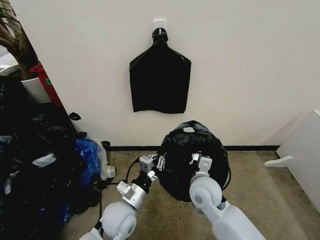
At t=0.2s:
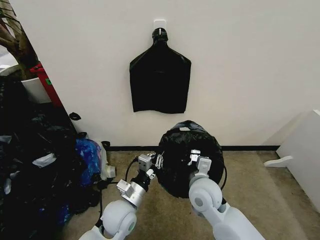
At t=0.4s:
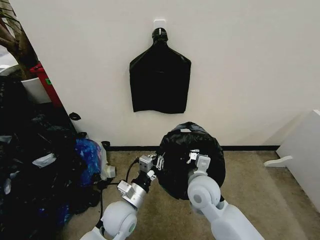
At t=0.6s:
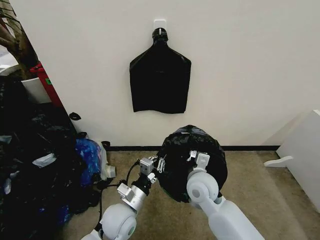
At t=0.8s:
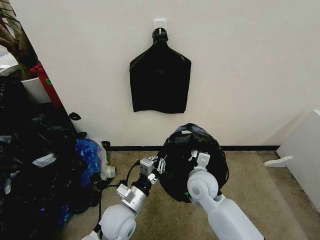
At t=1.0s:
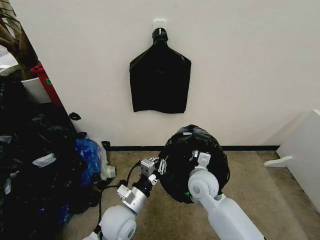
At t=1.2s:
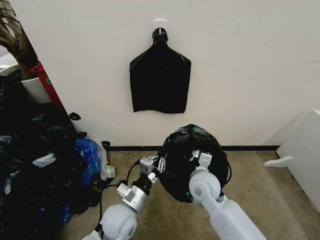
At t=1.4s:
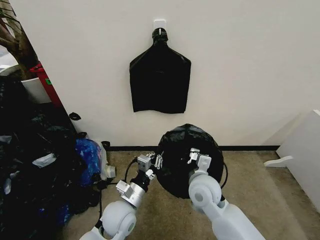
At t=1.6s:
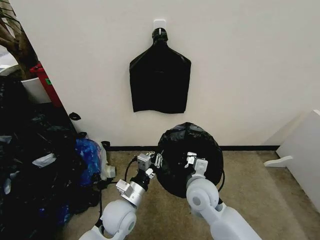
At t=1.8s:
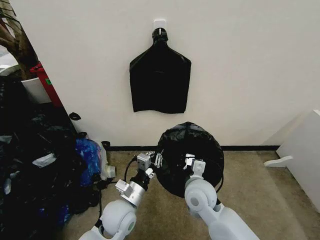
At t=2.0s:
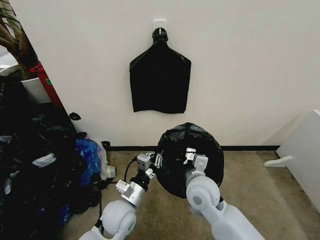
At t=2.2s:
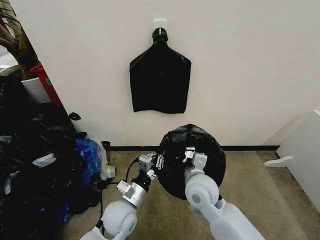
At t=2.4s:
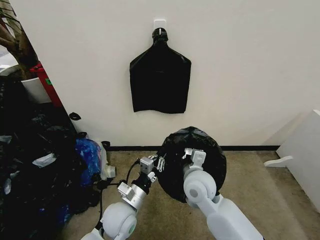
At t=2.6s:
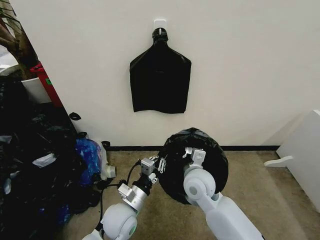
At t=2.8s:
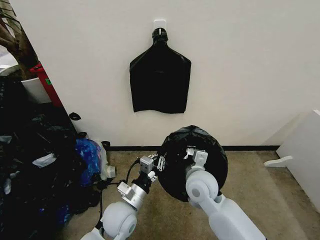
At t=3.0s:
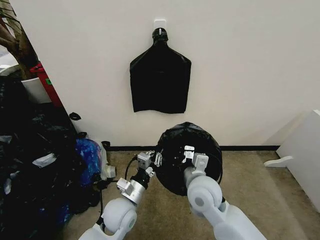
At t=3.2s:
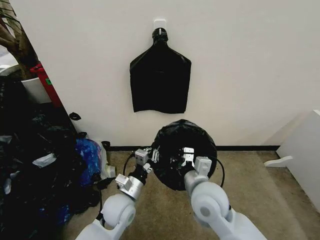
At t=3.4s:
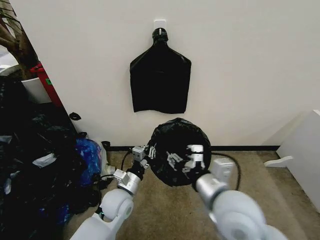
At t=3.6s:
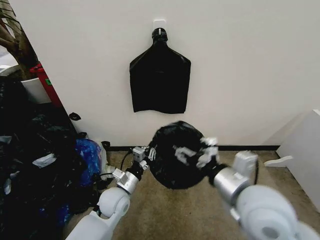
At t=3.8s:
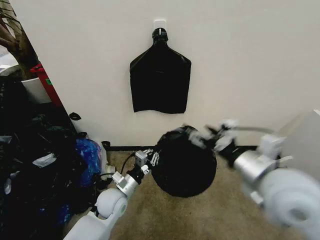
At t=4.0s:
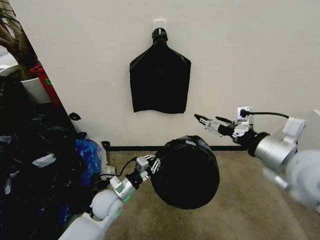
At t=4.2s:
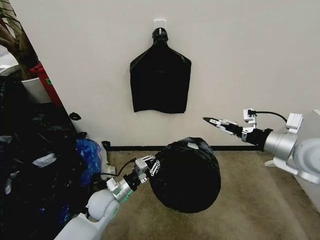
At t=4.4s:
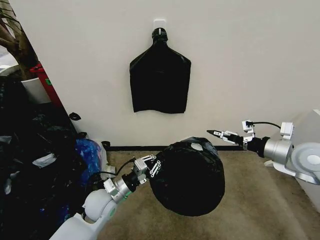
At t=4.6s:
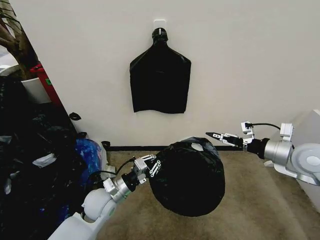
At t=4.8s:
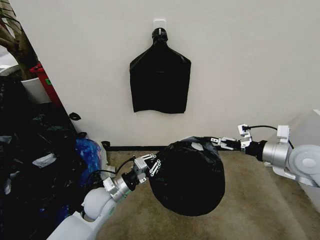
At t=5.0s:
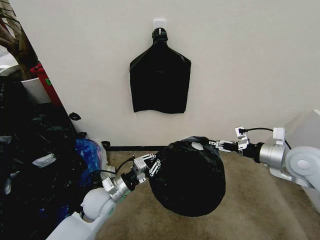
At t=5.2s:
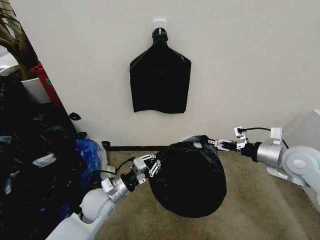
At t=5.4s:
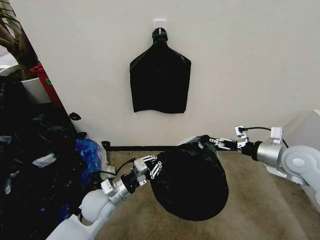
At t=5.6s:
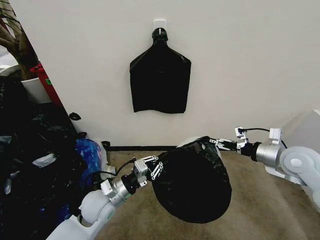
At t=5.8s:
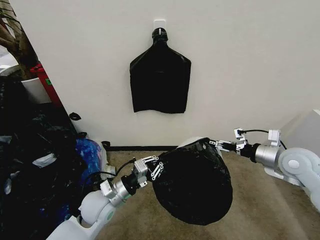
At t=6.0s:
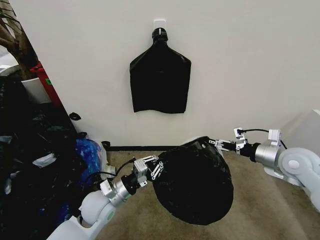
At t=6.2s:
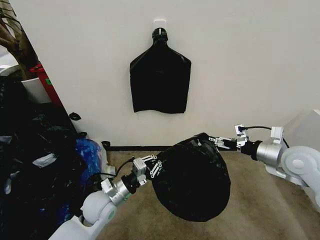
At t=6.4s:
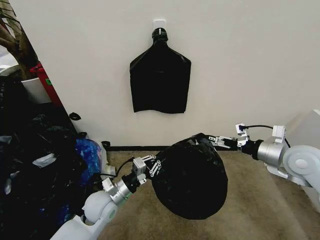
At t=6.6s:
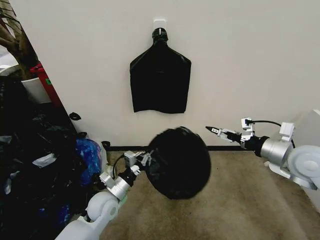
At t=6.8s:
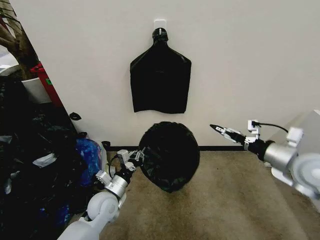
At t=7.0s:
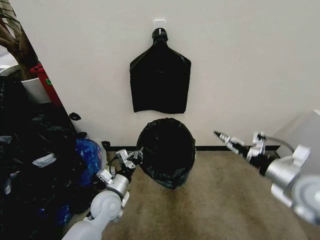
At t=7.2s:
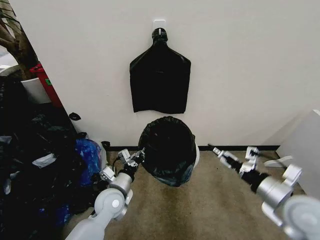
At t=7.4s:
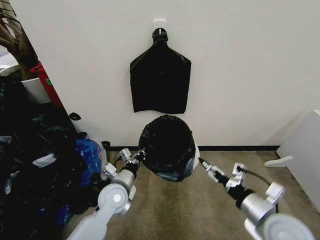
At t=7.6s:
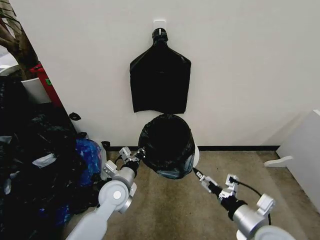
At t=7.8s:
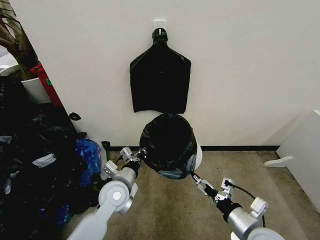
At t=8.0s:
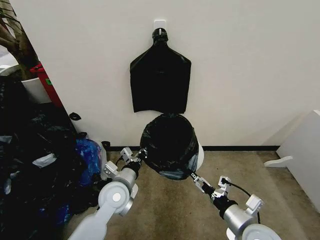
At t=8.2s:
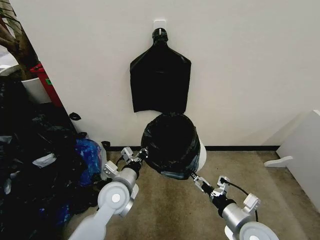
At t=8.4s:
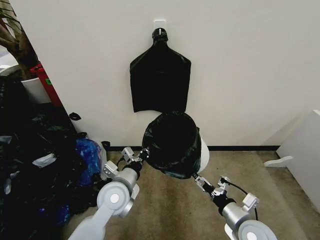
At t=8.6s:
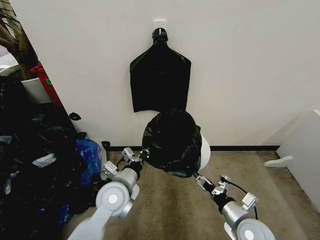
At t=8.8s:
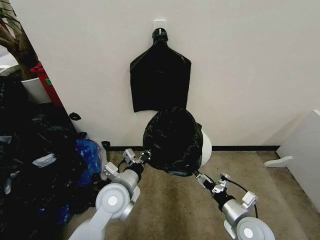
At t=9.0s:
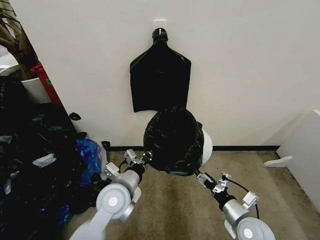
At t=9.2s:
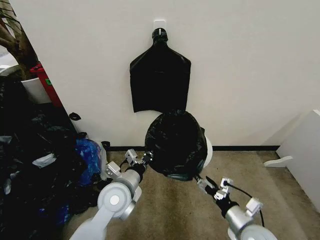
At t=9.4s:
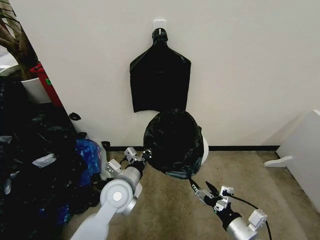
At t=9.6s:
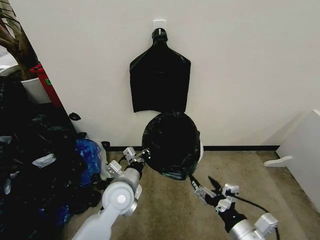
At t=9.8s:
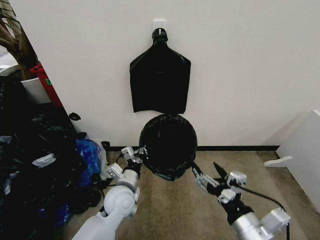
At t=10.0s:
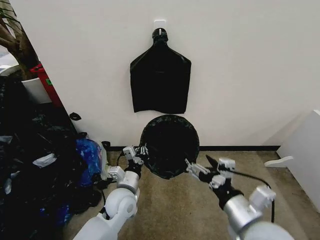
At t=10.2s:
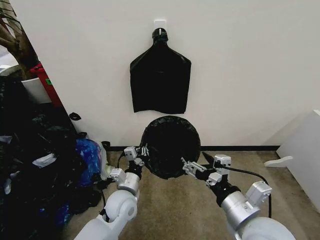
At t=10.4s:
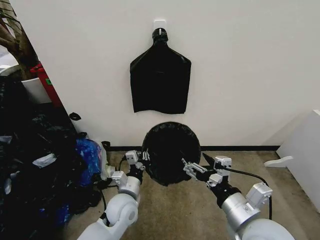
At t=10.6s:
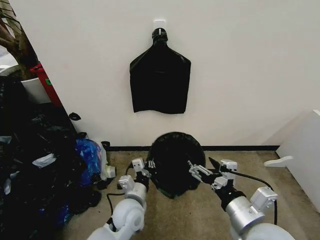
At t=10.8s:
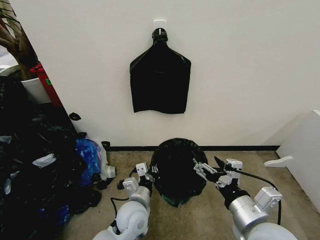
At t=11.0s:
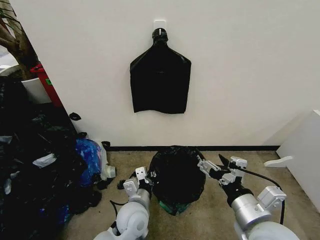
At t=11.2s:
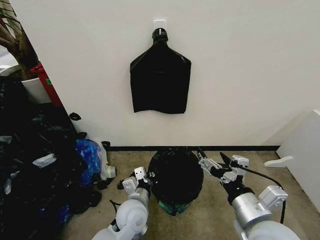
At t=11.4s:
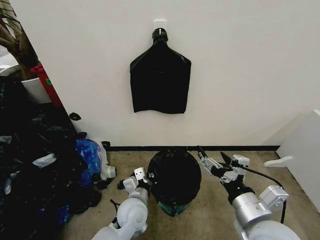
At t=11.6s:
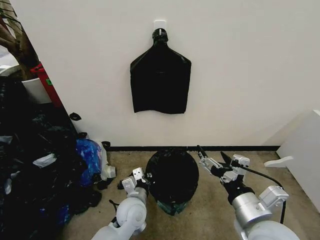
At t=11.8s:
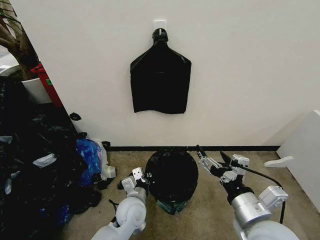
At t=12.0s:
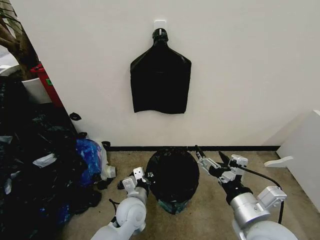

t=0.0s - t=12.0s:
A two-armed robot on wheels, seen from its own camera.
Task of the whole recording: Place the garbage bag over the trash bin.
t=0.0s - t=3.0s: The grippers make only small movements.
t=3.0s - t=4.4s: The left gripper moves to the left, roughly 5 cm; the right gripper goes roughly 30 cm to the right, and opens up.
t=4.4s - t=6.0s: The grippers make only small movements.
t=6.0s - t=7.6s: The right gripper goes about 20 cm backward, to the left and downward.
t=7.6s - t=9.0s: The right gripper is displaced downward by about 10 cm. Meanwhile the left gripper goes roughly 5 cm upward.
t=9.0s - t=10.4s: The right gripper heads upward and to the left, covering roughly 15 cm, while the left gripper shifts approximately 10 cm downward.

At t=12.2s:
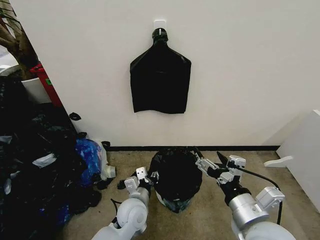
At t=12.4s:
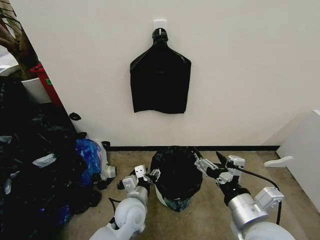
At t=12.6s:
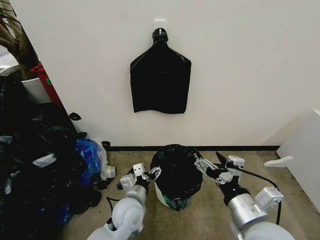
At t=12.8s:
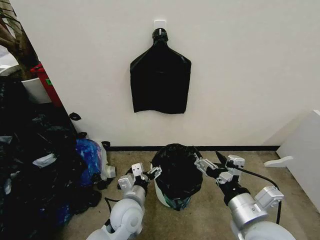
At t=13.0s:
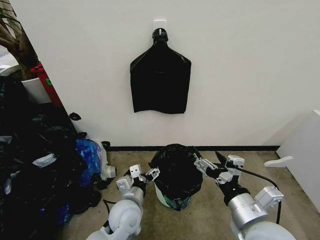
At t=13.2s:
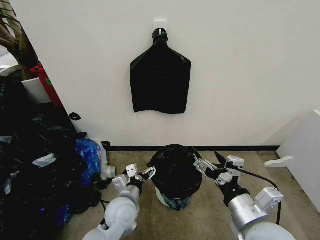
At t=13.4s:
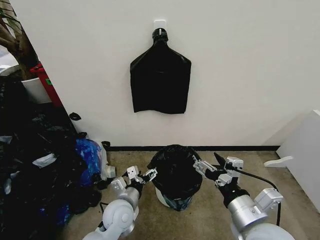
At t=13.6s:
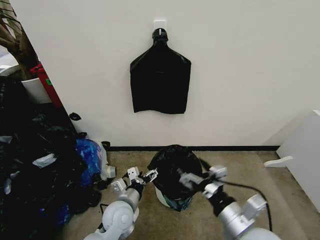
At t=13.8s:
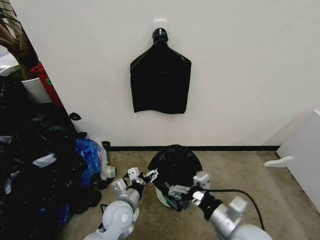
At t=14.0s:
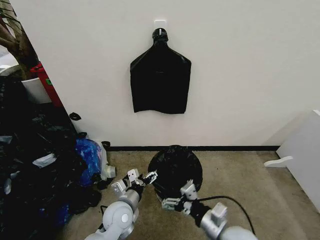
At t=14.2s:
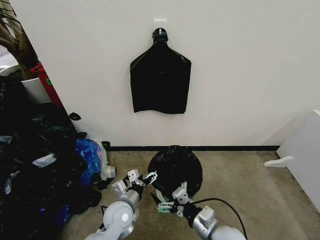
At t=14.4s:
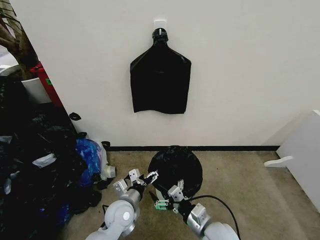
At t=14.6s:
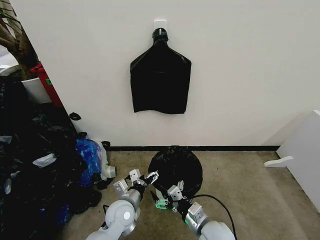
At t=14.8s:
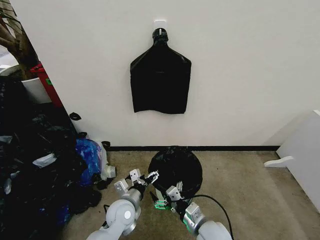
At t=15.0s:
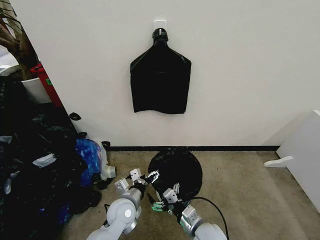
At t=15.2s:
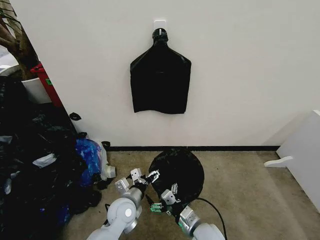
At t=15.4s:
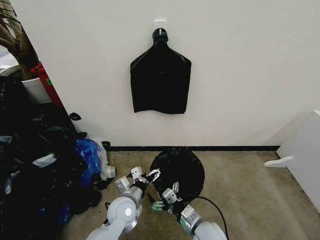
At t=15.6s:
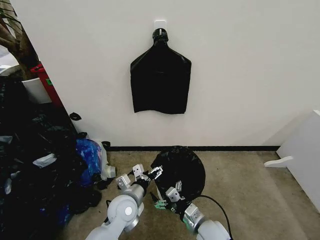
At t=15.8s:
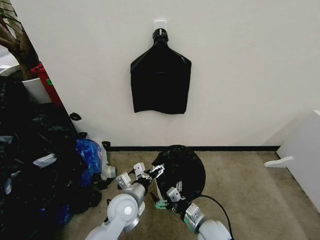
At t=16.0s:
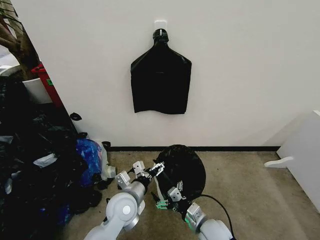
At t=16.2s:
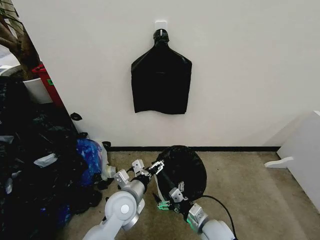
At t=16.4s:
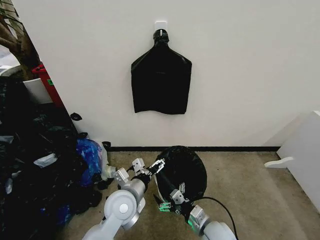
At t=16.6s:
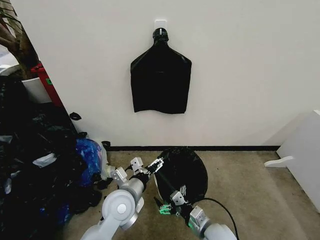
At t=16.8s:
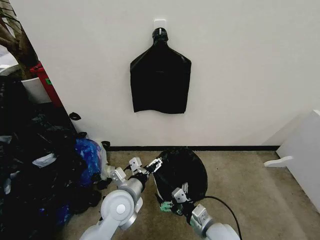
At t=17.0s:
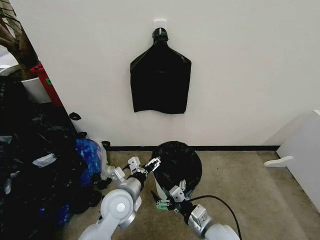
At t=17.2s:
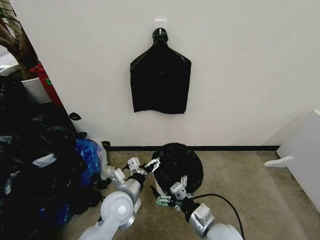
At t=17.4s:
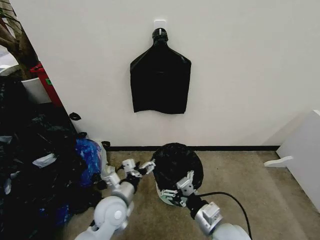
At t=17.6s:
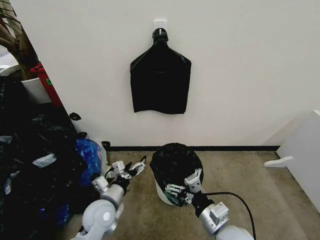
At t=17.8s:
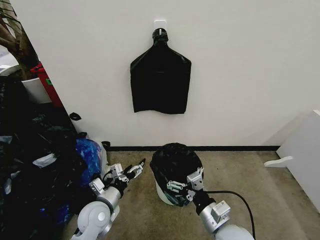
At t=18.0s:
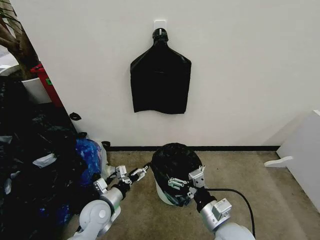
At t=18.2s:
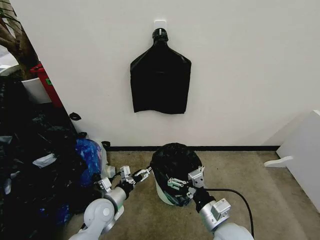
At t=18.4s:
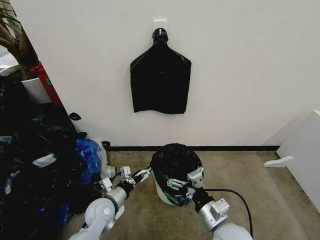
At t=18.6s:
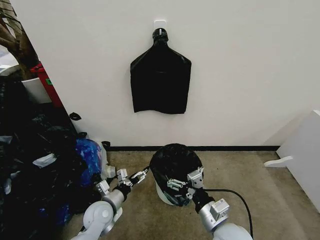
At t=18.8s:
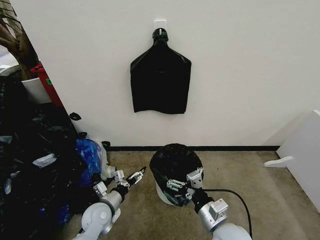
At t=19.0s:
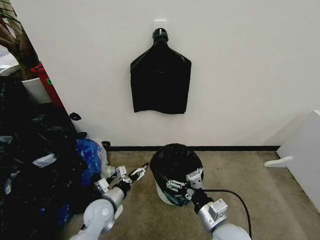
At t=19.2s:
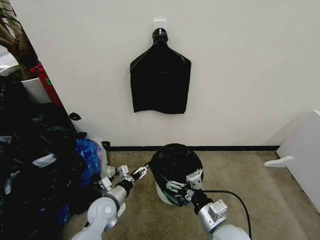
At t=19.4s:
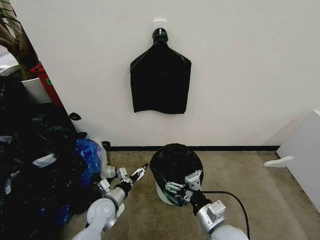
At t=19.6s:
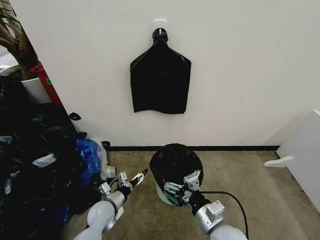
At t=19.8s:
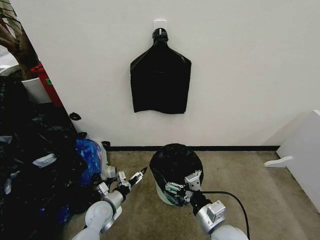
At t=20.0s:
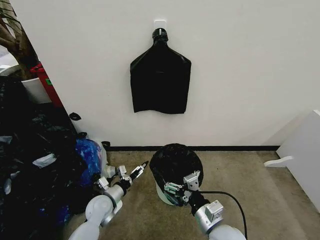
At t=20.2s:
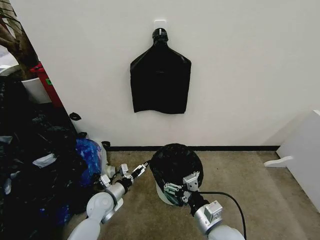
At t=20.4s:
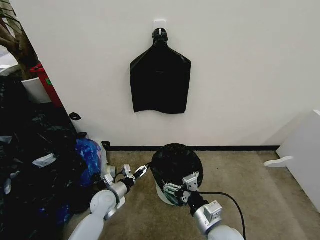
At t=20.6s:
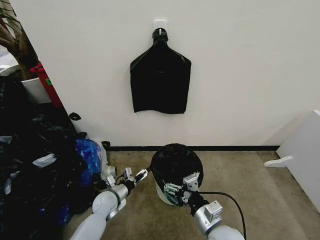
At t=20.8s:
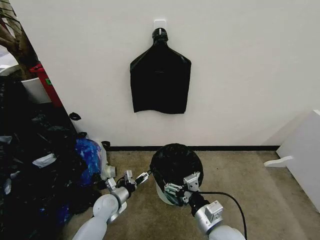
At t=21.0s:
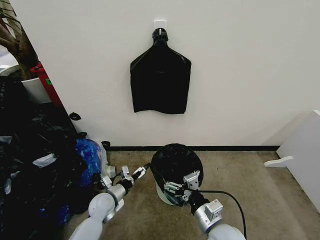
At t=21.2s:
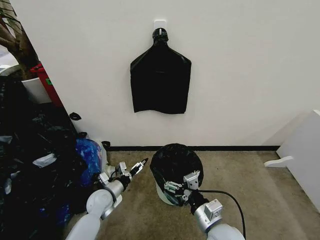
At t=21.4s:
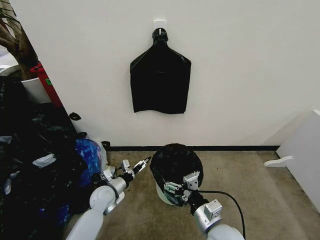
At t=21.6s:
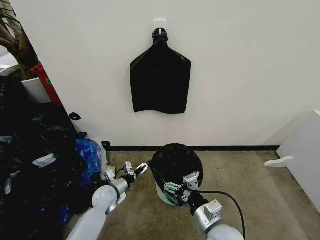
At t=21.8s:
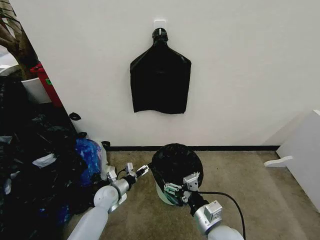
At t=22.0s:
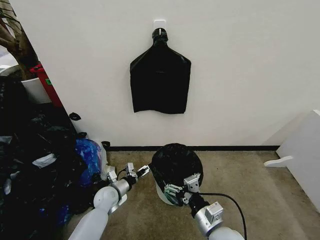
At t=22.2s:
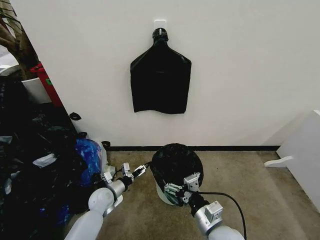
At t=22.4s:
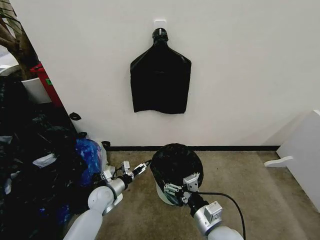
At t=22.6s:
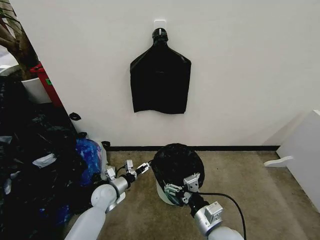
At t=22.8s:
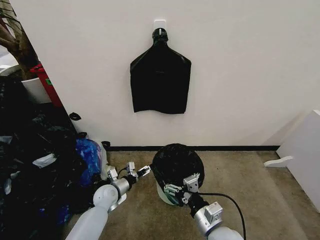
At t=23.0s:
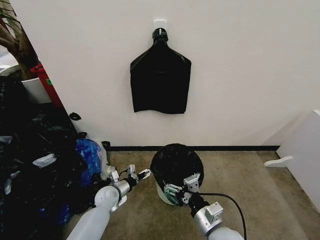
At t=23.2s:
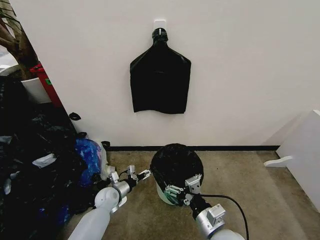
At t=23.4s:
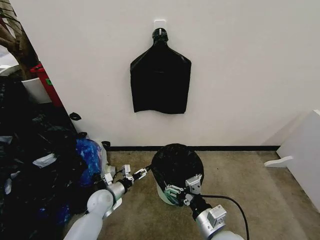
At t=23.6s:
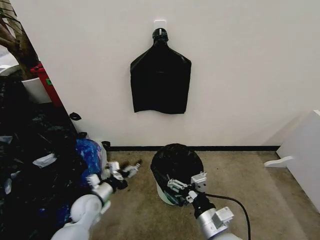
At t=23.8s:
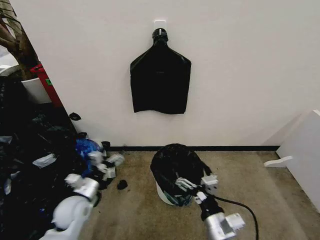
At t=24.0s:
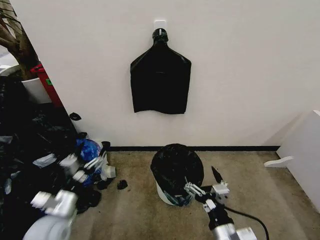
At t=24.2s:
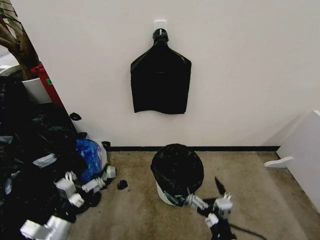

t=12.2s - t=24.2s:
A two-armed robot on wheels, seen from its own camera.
Task of the whole recording: Place the garbage bag over the trash bin.
t=12.2s - t=13.8s: The left gripper opens; the right gripper moves downward, some 10 cm.
t=13.8s - t=15.2s: The right gripper travels downward and to the left by some 15 cm.
t=15.2s - t=16.6s: The left gripper travels upward by approximately 10 cm.
t=16.6s - t=18.2s: The left gripper heads downward and to the left, covering some 15 cm; the right gripper shifts about 10 cm upward.
t=18.2s - t=19.8s: The left gripper goes about 5 cm downward.
t=19.8s - t=21.2s: The grippers make only small movements.
t=21.2s - t=22.6s: The grippers move only a little.
t=22.6s - t=24.2s: The right gripper travels backward by some 10 cm; the left gripper goes some 25 cm backward and upward.
